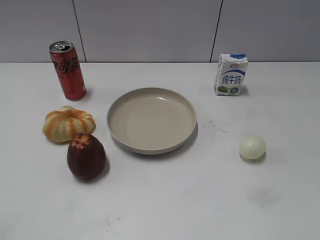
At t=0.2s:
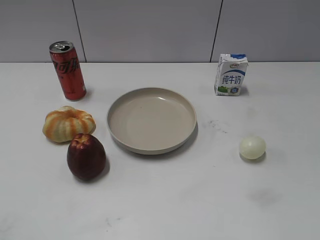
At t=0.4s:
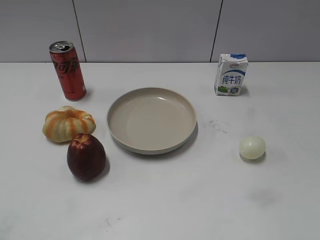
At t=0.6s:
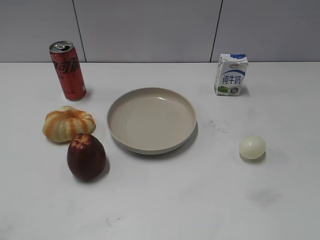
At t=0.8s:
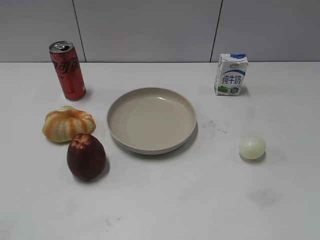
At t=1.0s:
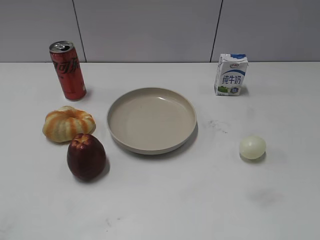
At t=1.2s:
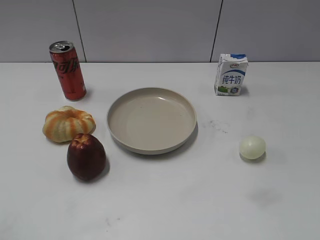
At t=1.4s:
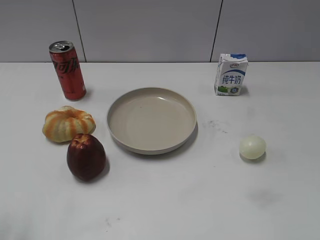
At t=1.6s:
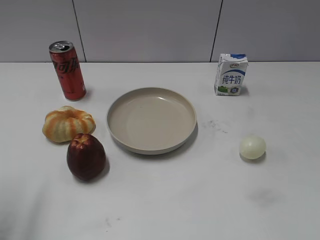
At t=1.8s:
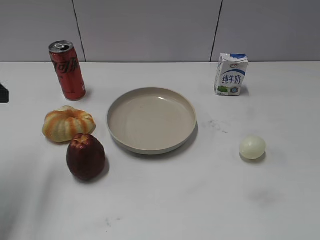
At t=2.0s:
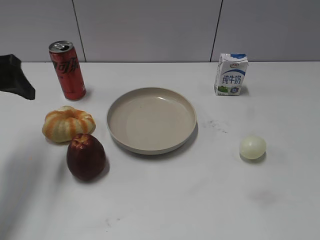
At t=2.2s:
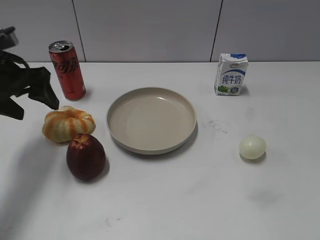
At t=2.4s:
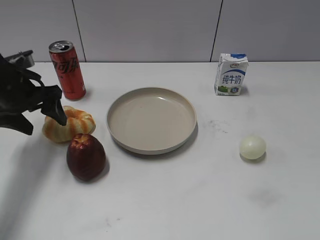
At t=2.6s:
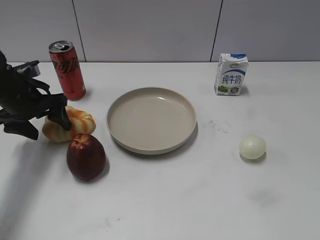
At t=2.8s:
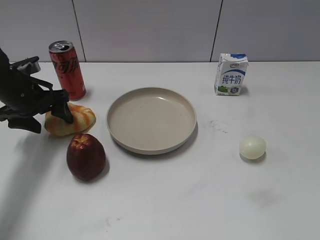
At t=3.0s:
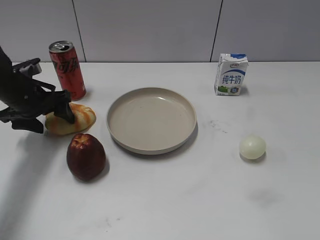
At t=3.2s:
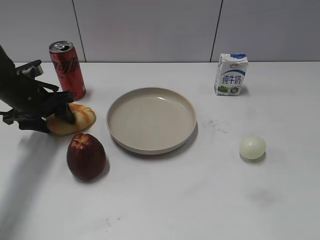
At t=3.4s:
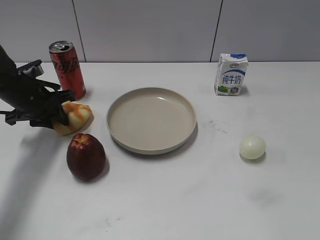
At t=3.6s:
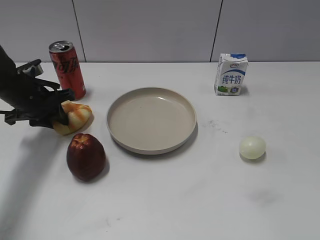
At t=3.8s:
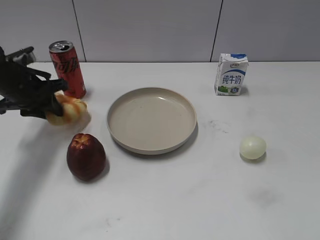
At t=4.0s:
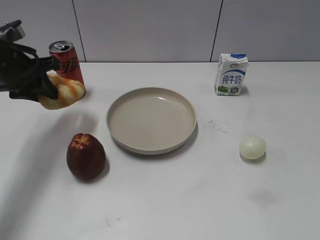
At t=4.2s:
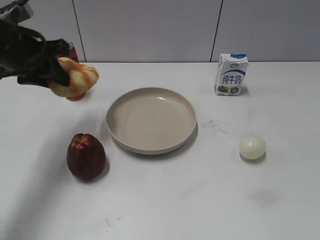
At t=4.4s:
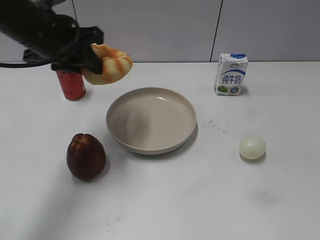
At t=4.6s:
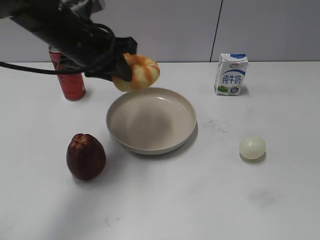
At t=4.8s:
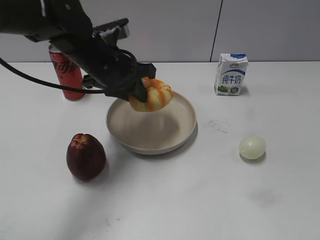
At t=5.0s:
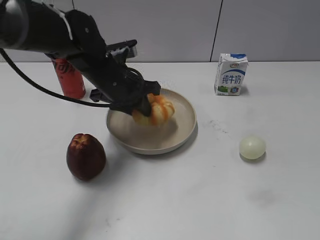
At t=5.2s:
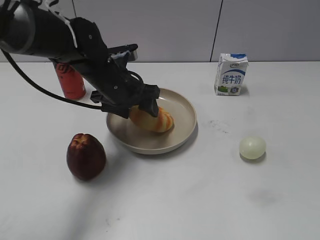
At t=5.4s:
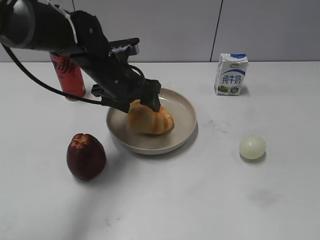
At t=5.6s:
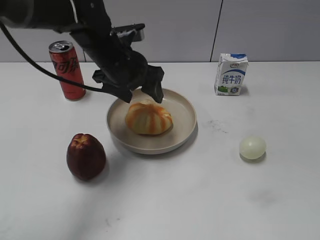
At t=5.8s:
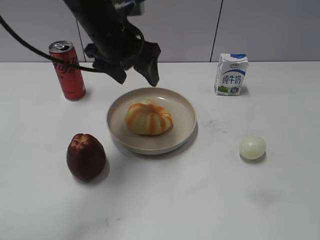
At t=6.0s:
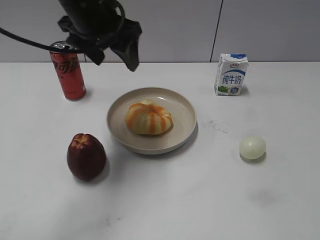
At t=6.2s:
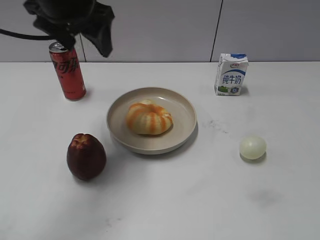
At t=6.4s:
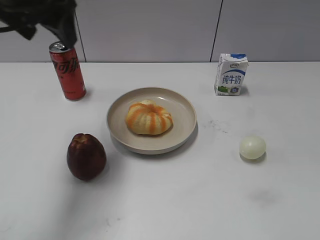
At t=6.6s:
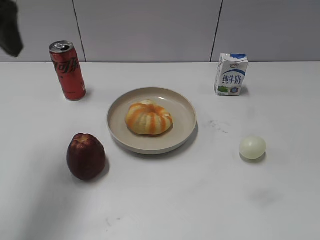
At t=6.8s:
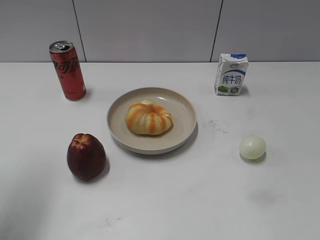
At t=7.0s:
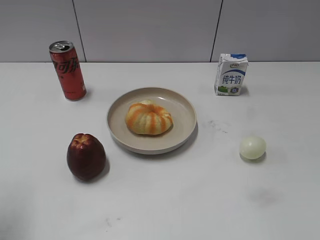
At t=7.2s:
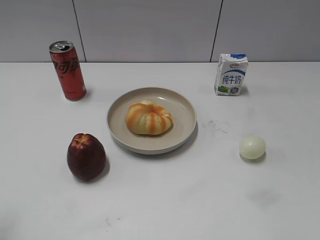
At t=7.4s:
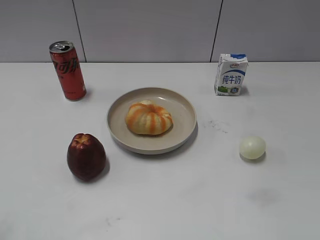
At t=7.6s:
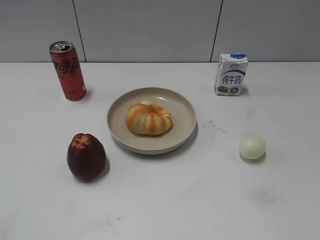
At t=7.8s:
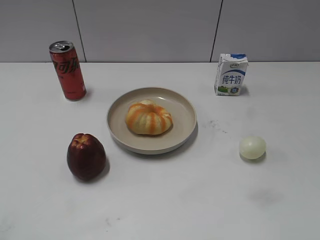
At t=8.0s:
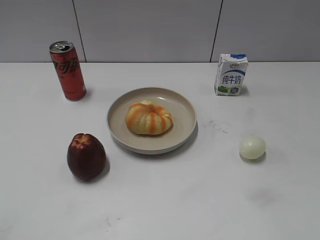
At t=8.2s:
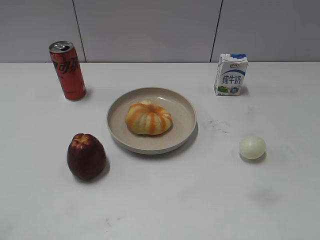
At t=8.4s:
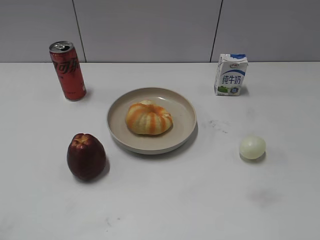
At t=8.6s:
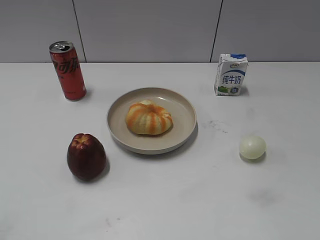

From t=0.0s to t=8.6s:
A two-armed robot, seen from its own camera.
Step, from t=1.0s to t=3.6s: Grasp the round bread with left gripper.
Step, from t=3.8s to t=5.4s: Place the round bread on the plate with left gripper.
From t=1.4s to t=2.8s: The left gripper goes about 30 cm forward and downward.
From t=2.8s to t=4.4s: The left gripper is displaced upward and to the right by about 15 cm, and closes.
From t=4.4s to t=5.8s: The left gripper moves to the right, some 10 cm, goes downward and returns, some 10 cm each way, and opens up.
From t=5.8s to t=7.2s: The left gripper travels backward and to the left by some 35 cm.

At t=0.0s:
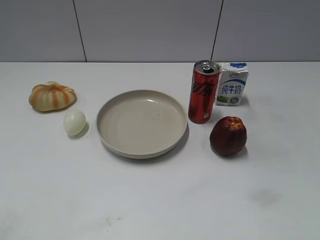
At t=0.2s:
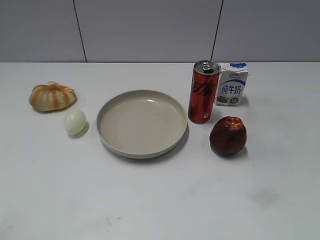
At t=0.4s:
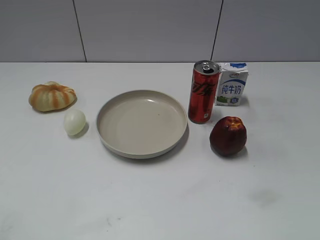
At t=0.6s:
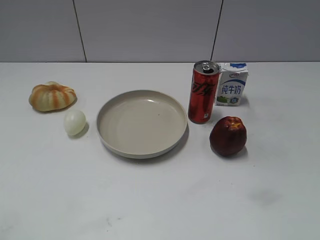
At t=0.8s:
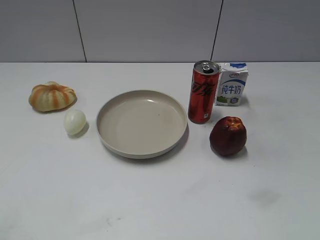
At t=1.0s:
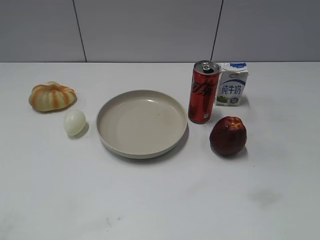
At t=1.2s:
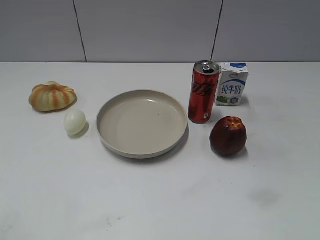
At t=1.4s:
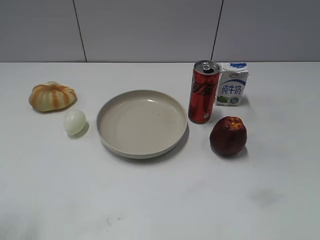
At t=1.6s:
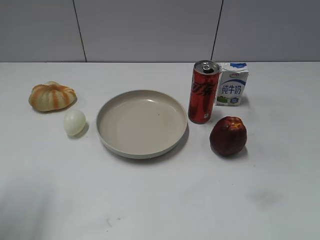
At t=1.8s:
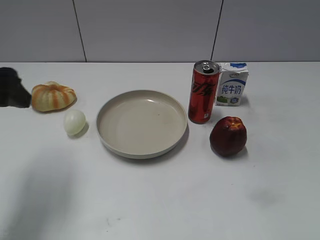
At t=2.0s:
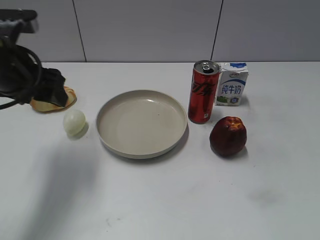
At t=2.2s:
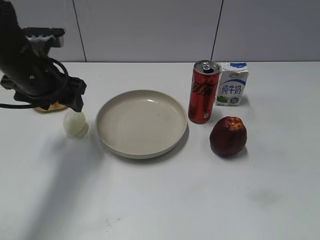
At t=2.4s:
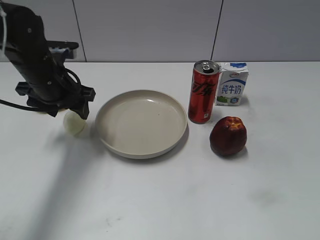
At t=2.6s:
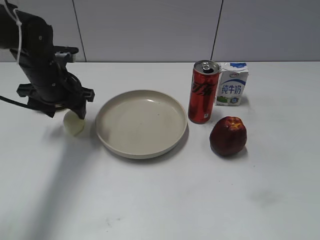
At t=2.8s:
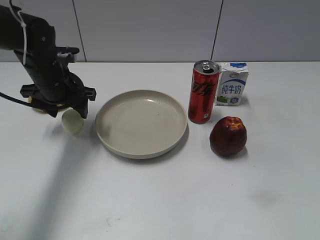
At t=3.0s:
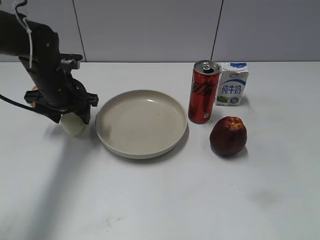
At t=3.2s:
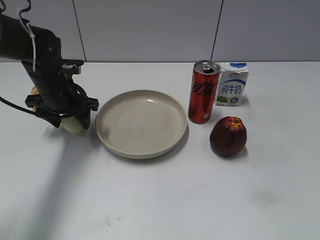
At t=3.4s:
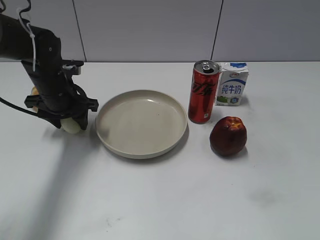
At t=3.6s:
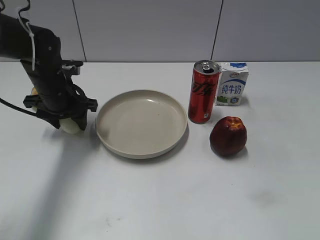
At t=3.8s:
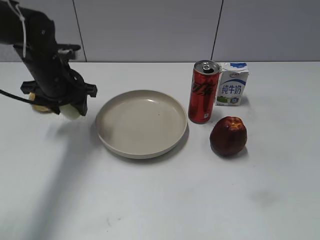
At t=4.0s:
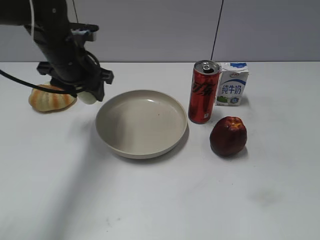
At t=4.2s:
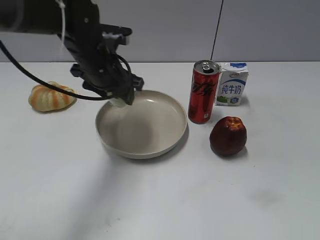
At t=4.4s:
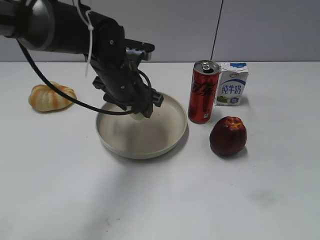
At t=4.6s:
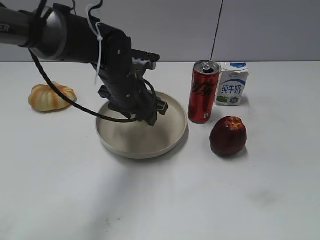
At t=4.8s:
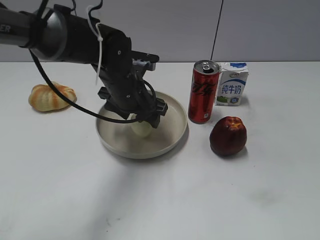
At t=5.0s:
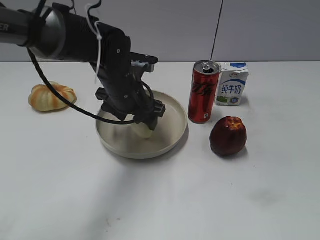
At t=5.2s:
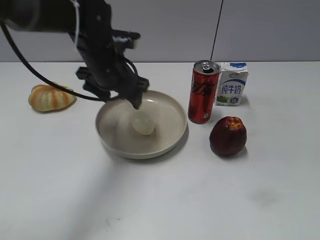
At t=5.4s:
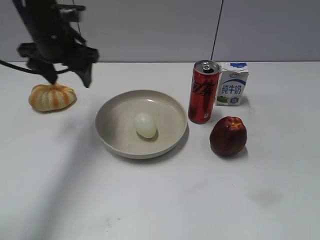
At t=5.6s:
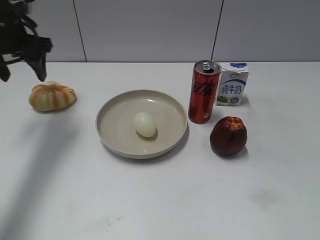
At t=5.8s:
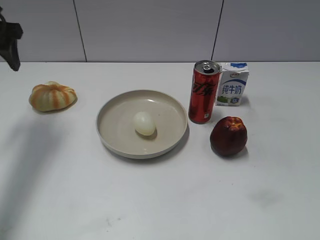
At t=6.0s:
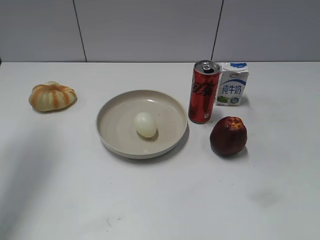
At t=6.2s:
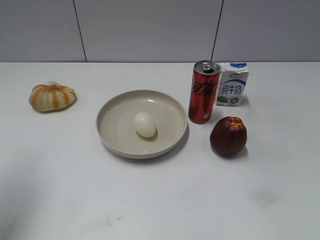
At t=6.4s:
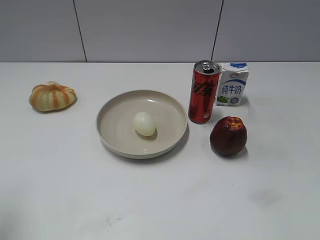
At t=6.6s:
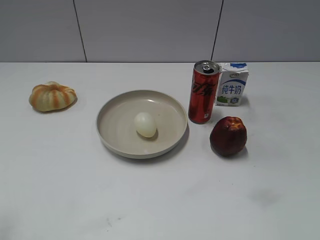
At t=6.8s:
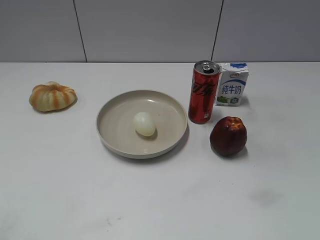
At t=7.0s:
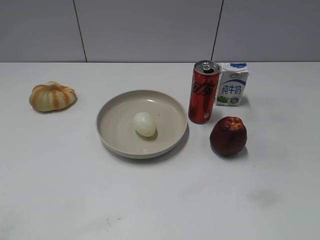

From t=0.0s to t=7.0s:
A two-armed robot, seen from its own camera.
Step, from t=1.0s to t=3.2s: Grasp the egg with left gripper.
Step, from t=3.6s to t=5.2s: Place the egg on the plate with left gripper.
From t=1.4s to t=2.8s: The left gripper moves forward and downward, some 30 cm.
From t=2.8s to t=4.2s: The left gripper is displaced to the right by about 10 cm, and closes its fingers.
From t=4.2s to t=5.6s: The left gripper shifts roughly 20 cm to the left and upward, and opens up.
From t=5.6s to t=7.0s: The left gripper is displaced backward by some 35 cm.

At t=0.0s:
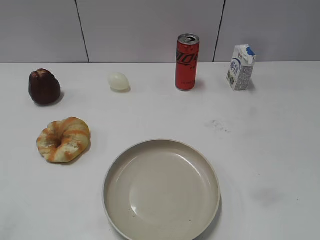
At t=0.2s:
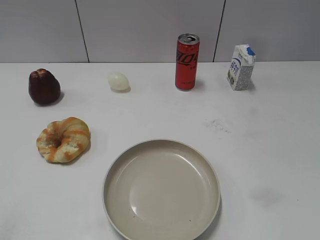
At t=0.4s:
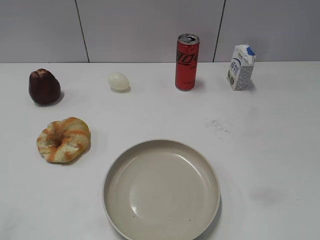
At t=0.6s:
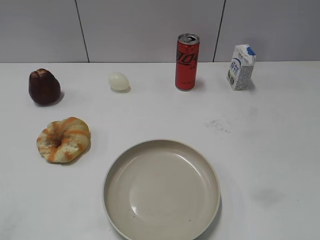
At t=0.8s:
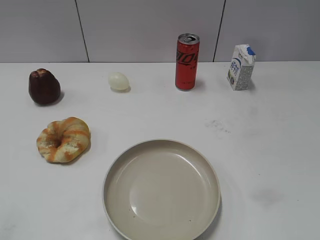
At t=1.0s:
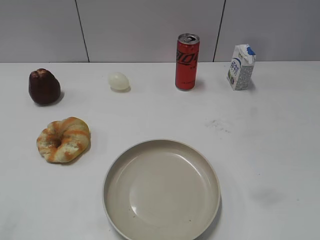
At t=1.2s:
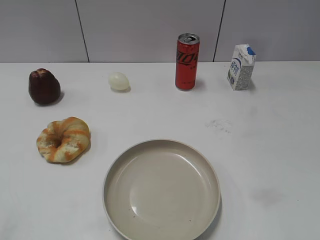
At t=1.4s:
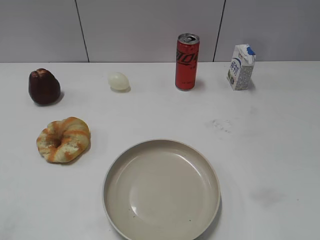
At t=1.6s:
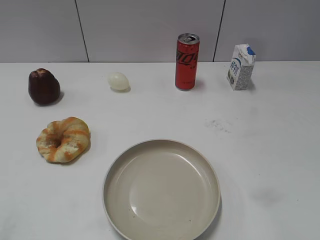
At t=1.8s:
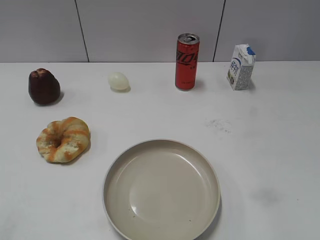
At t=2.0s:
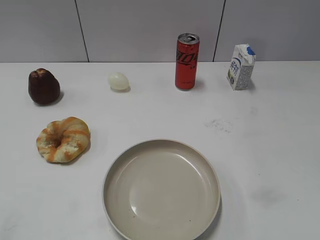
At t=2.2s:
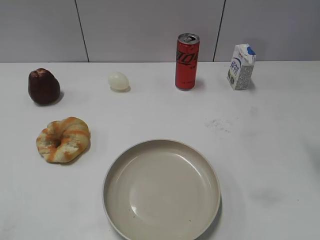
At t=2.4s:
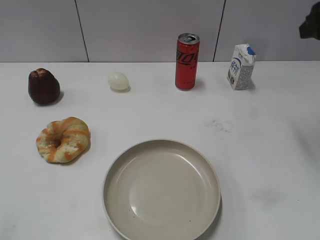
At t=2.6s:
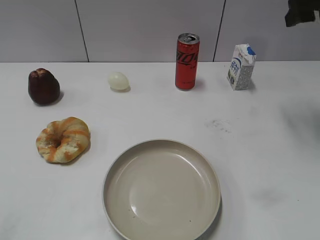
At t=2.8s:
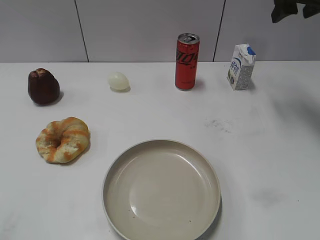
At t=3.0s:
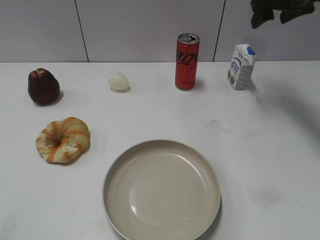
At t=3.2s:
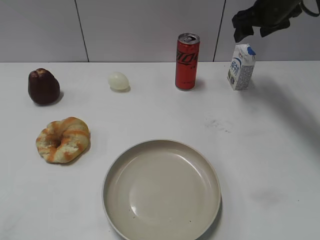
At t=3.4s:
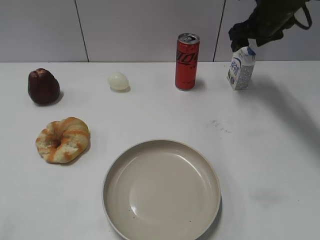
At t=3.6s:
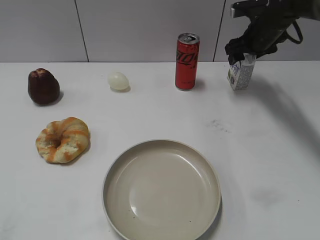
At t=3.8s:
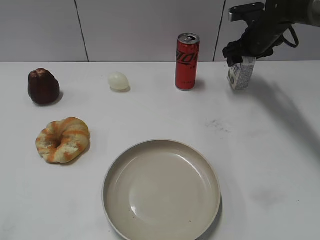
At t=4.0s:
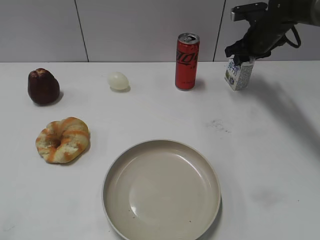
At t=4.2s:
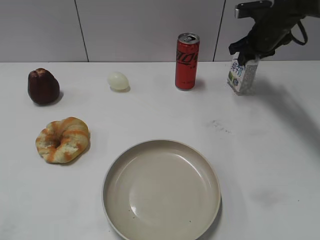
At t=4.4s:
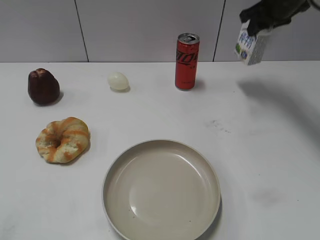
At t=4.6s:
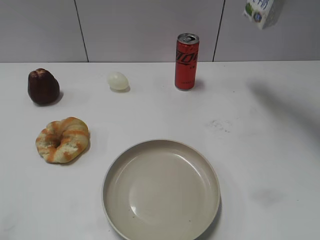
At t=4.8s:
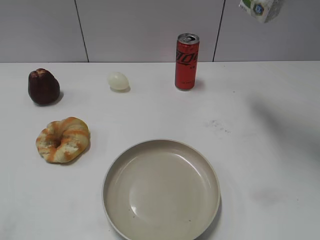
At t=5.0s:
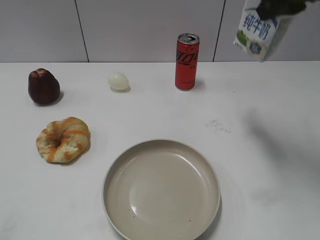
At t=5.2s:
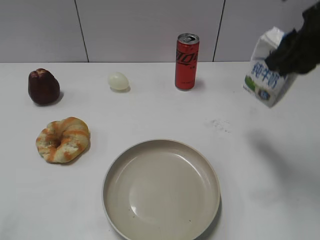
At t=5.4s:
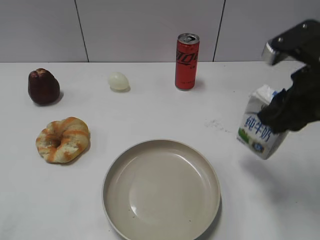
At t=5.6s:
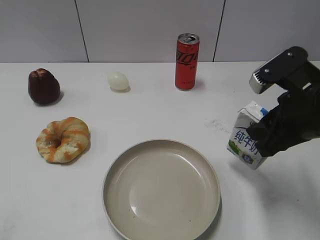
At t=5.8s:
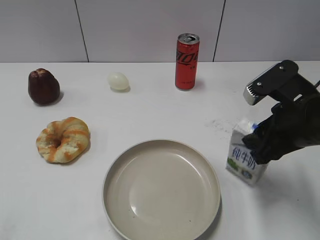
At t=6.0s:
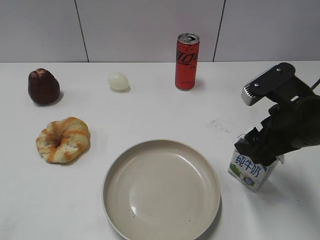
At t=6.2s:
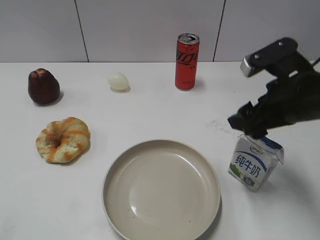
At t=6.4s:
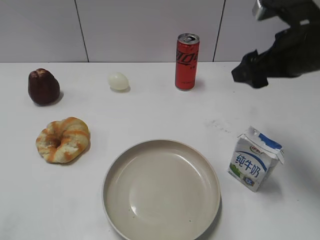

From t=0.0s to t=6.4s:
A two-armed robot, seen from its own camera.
Step, from t=1.0s to t=4.0s: Grasp the milk with right gripper.
Step, from t=4.4s to t=6.0s: Place the milk on the table with right gripper.
From t=1.6s to t=3.2s: The right gripper travels forward by about 40 cm.
From t=3.2s to t=4.8s: The right gripper shifts roughly 20 cm upward and backward, and closes.
From t=4.8s to t=6.4s: The right gripper travels downward and backward by approximately 15 cm, and opens up.
